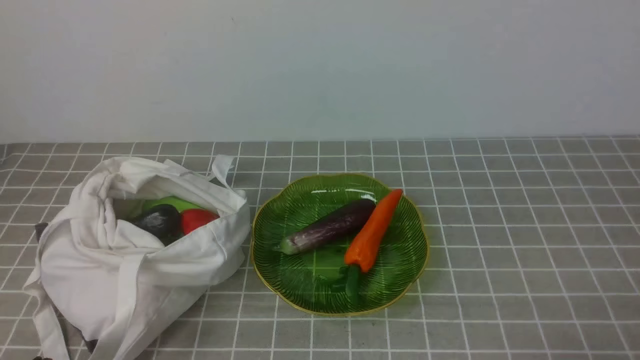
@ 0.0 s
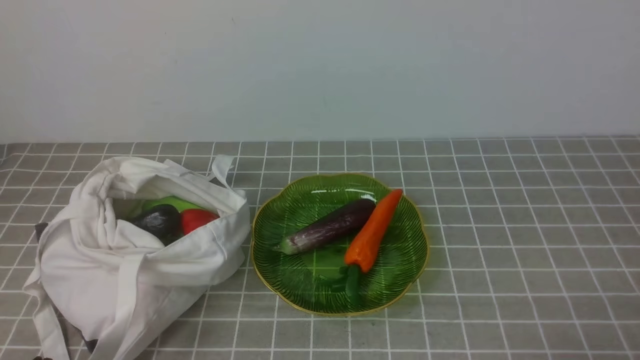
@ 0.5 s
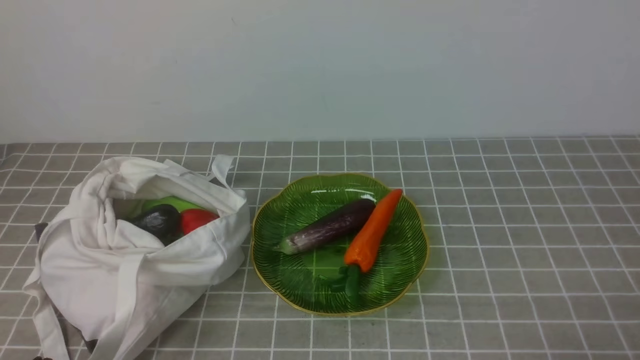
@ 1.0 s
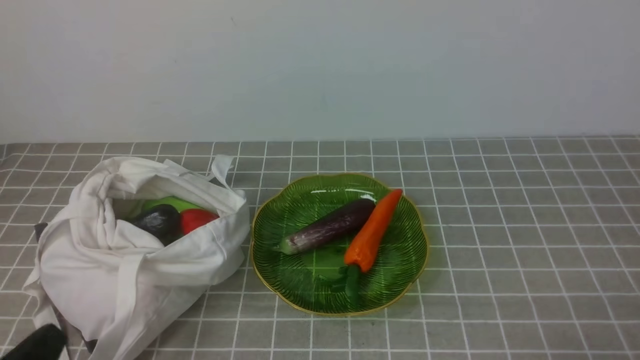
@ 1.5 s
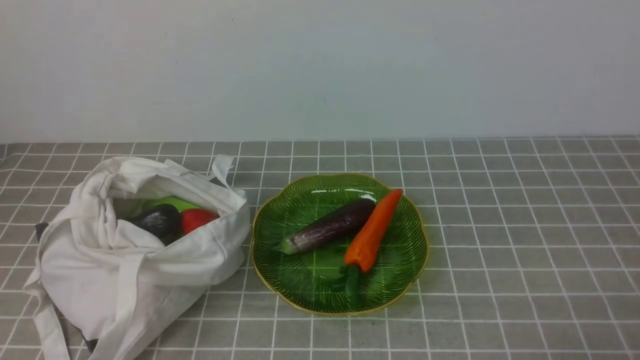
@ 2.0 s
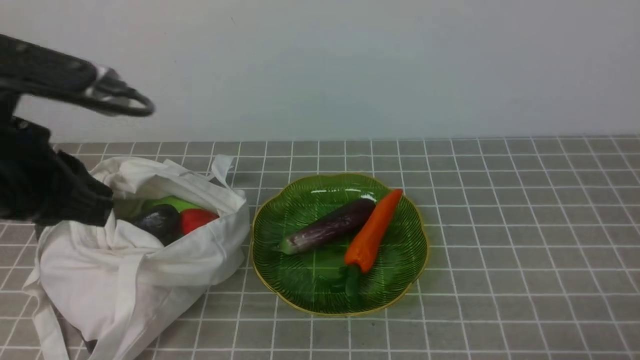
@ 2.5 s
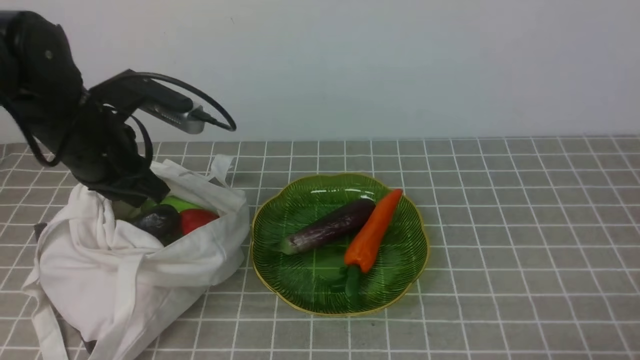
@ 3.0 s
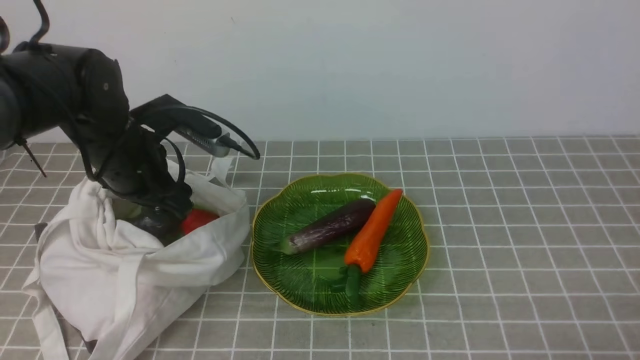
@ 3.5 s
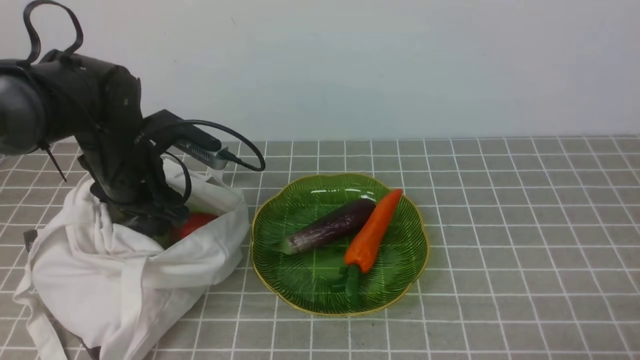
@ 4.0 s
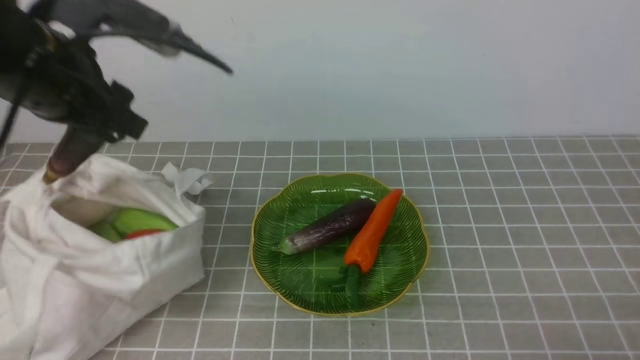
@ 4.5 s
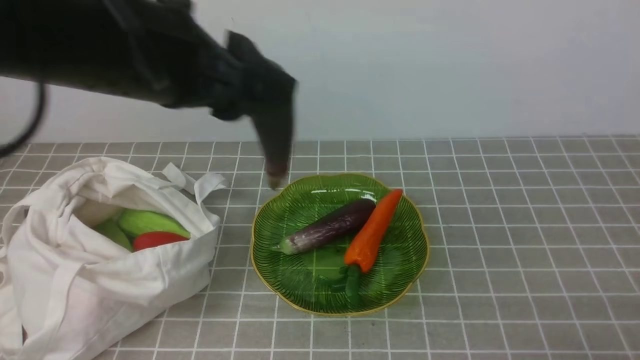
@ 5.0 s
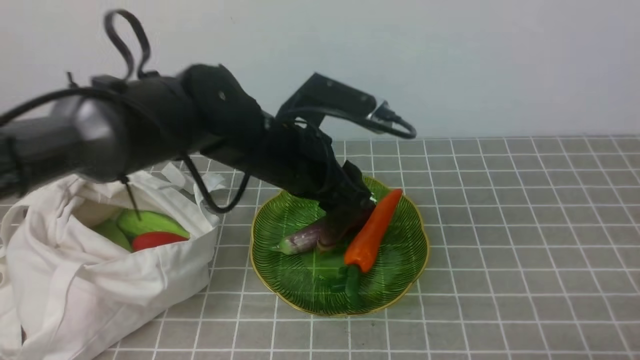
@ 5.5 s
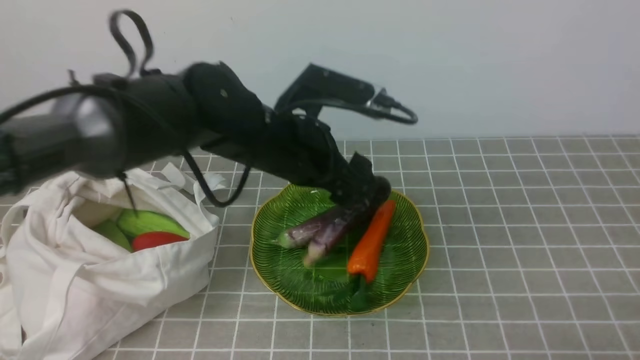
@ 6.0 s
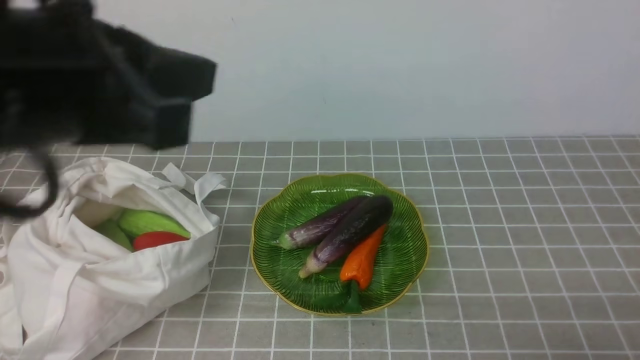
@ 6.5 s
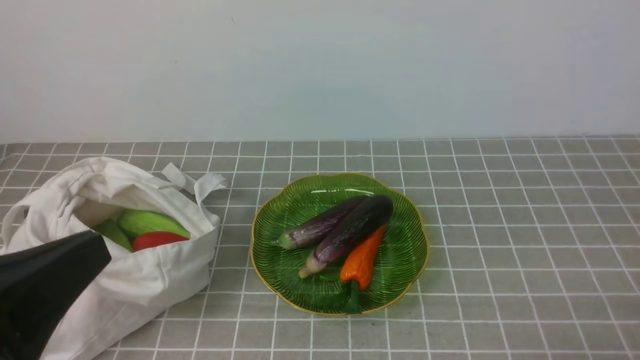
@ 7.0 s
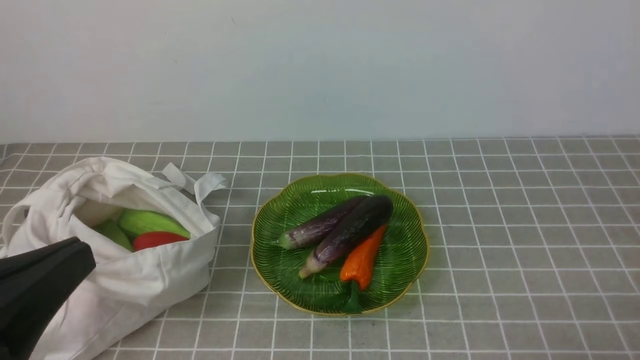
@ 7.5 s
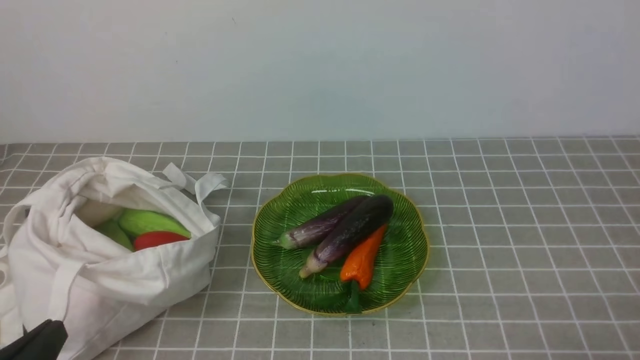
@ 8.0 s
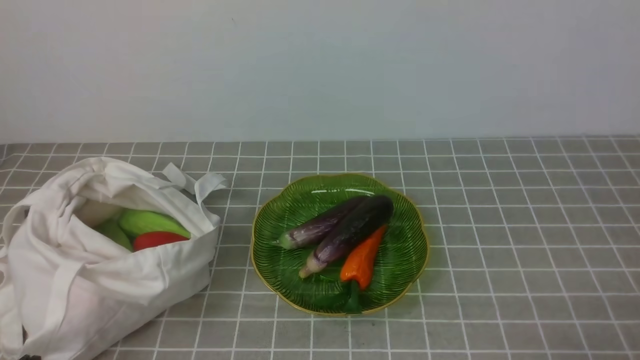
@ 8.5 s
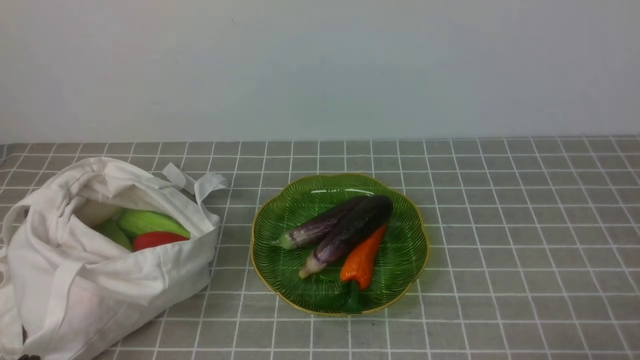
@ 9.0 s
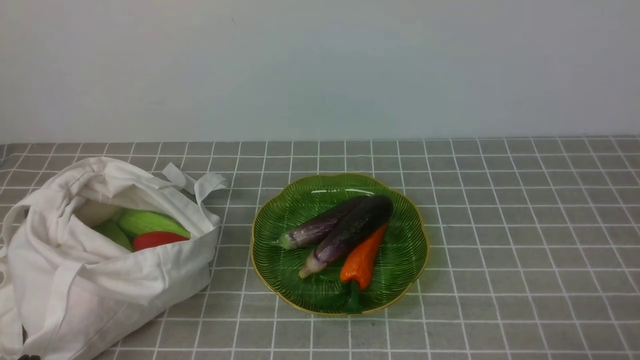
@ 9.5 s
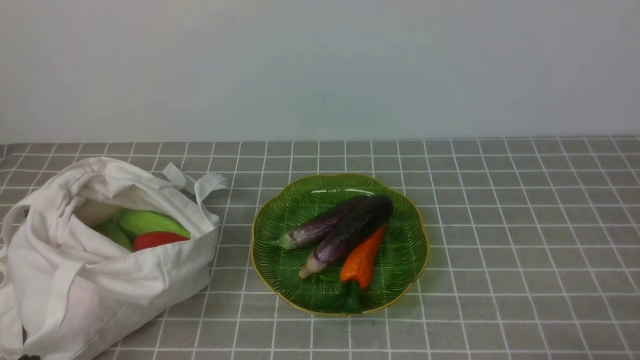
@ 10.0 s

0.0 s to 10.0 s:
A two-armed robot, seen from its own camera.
Task of the whole recording: take vegetables from bag on grey coffee tablecloth place on plate.
Step, 0.0 to 3.5 s: Grasp the eggplant with left gripper.
Step, 4.0 to 6.0 s: Place the eggplant on the plate with left gripper.
2.0 to 4.0 s: The left gripper moves forward, roughly 30 cm, and opens its fingers.
4.0 to 6.0 s: The left gripper shifts about 15 cm to the right.
6.0 to 8.0 s: The left gripper heads backward and to the left, covering approximately 30 cm, and closes up.
8.0 to 10.0 s: The grippers move only a little.
